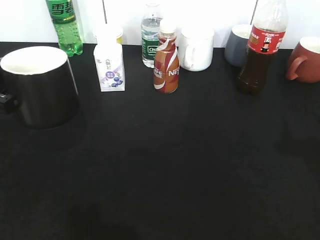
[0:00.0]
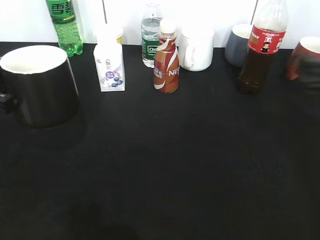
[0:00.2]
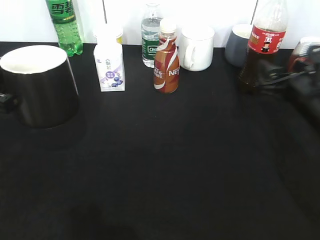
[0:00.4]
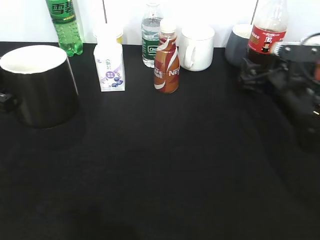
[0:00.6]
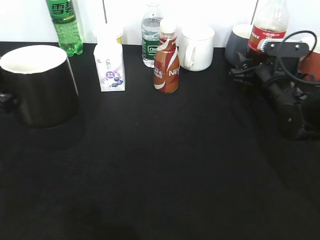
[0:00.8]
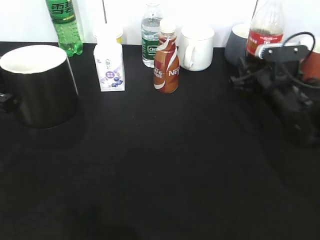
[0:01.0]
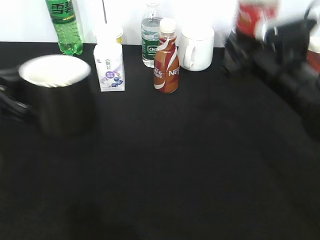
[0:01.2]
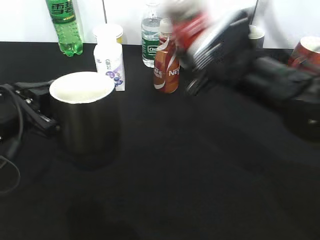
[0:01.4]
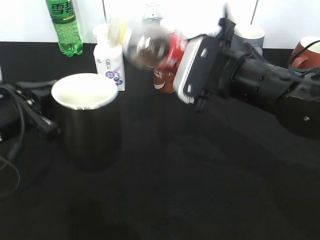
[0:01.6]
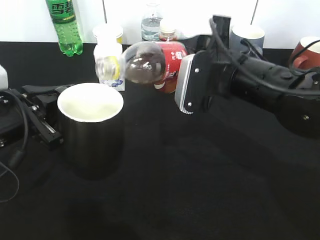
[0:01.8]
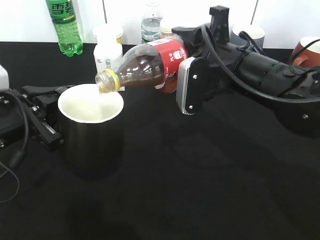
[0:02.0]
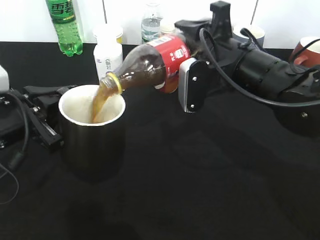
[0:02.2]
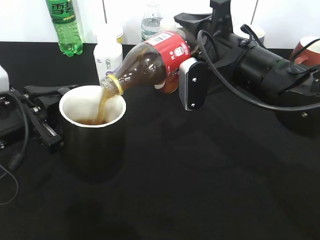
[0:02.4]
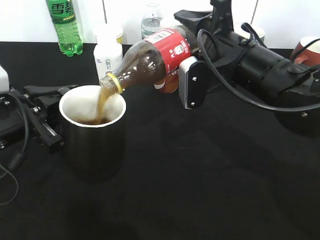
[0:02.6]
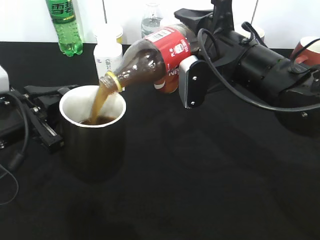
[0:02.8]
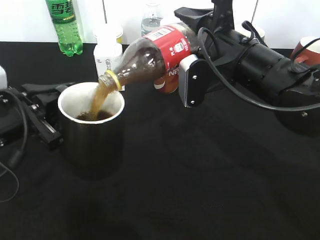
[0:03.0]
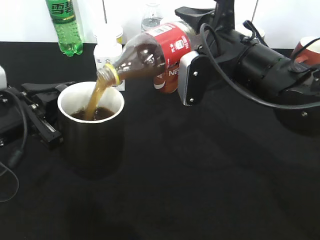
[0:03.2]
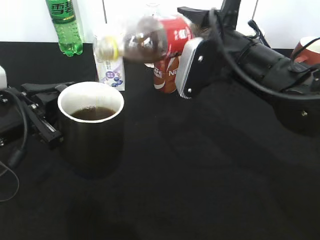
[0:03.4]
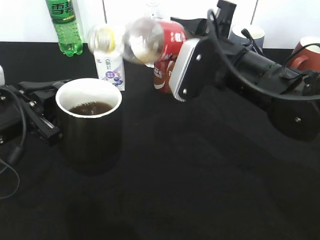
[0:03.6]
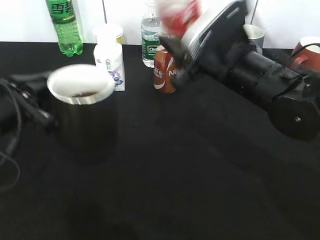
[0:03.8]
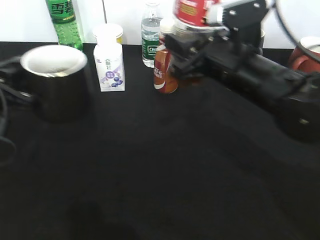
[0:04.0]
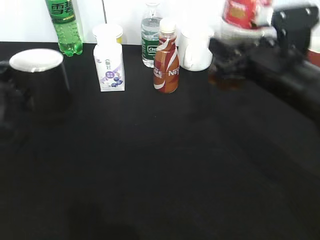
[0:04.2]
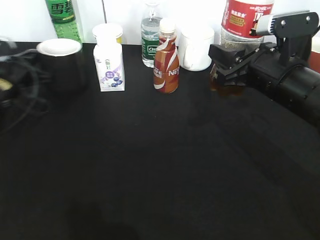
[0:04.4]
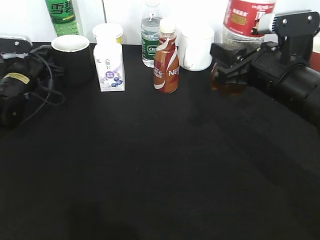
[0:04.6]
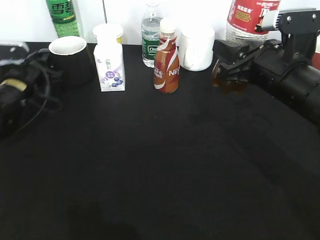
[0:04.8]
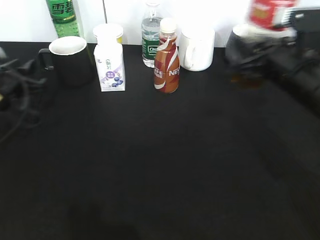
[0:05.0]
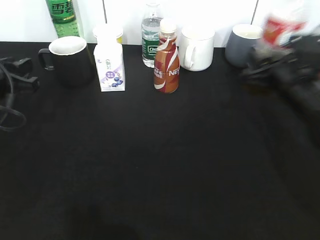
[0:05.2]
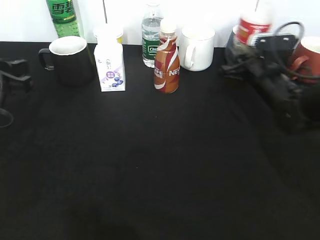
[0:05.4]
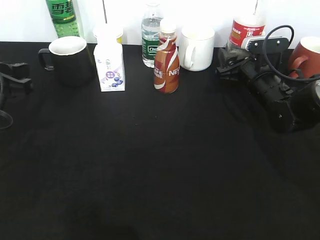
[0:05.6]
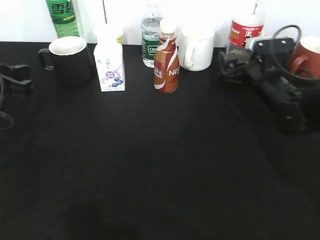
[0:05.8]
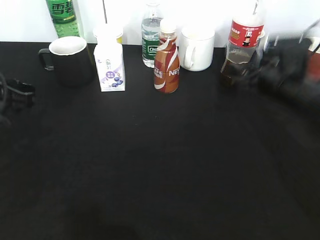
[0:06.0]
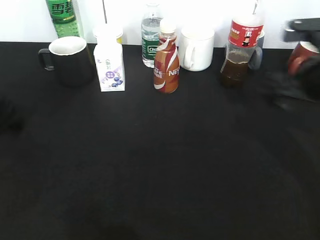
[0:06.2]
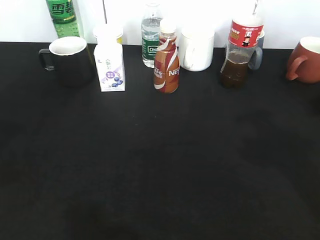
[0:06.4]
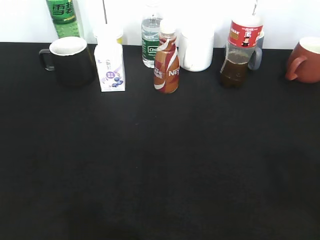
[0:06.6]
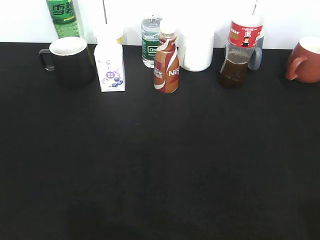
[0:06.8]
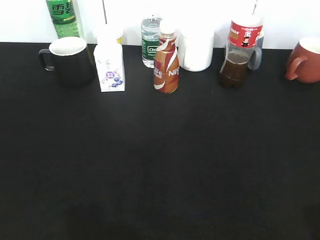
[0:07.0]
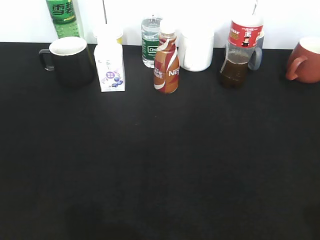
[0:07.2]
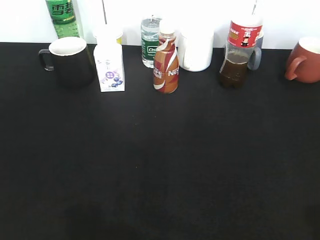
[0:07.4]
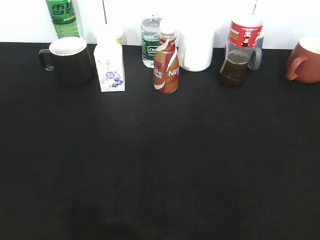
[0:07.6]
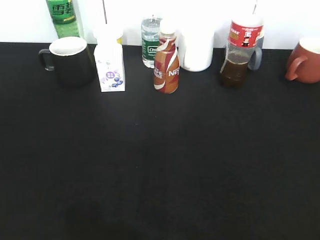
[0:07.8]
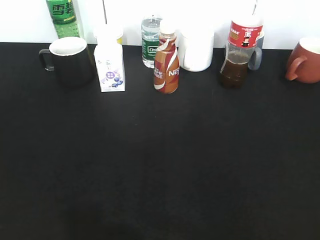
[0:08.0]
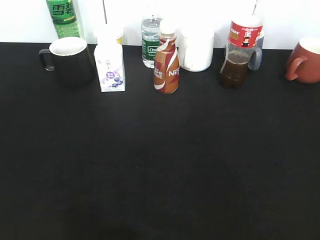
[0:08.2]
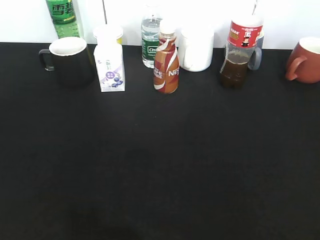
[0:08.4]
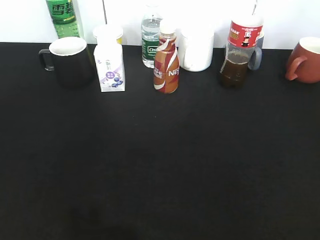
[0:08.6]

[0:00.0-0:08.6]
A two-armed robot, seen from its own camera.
Step, 0:00.2 to 0:00.8: Grasp the bottle with cola with right gripper.
Step, 0:01.2 to 0:03.4: Pour the cola from bottle to cup with right gripper.
Step, 0:03.8 to 0:05.0: Place the black cup on the table with left gripper.
Step, 0:05.2 to 0:06.0: Place the cola bottle on the table with right gripper.
0:00.0 to 0:01.4: The right gripper shifts roughly 20 cm to the left and forward, and closes up. Meanwhile the left gripper goes about 5 cm to the right.
0:02.8 to 0:04.4: The right gripper moves to the right, some 5 cm. Meanwhile the left gripper heads forward, covering roughly 15 cm.
0:04.4 to 0:05.8: The left gripper shifts roughly 15 cm backward and upward, and opens its fingers. The right gripper goes roughly 15 cm forward and downward, and opens up.
0:05.8 to 0:07.2: The right gripper goes some 40 cm backward and upward. The left gripper is displaced backward by approximately 25 cm.
